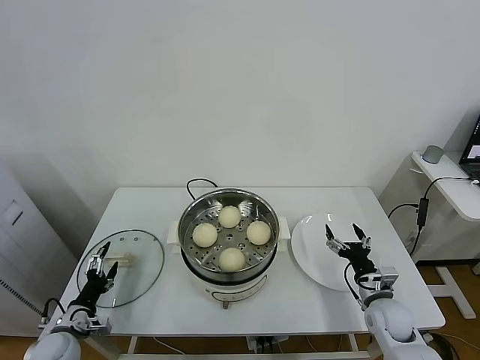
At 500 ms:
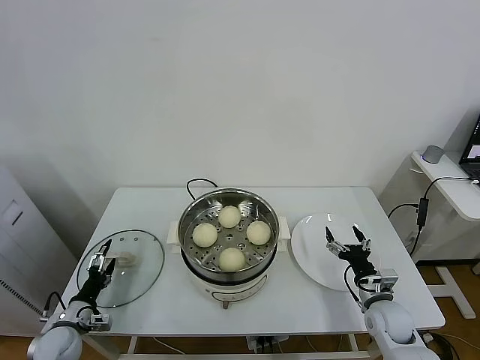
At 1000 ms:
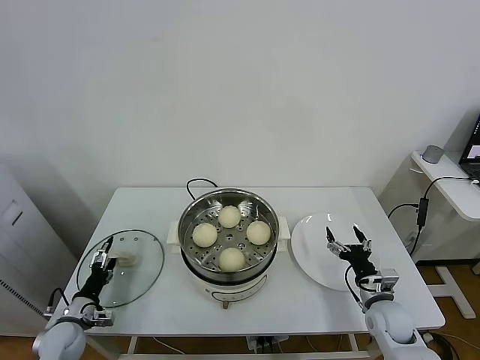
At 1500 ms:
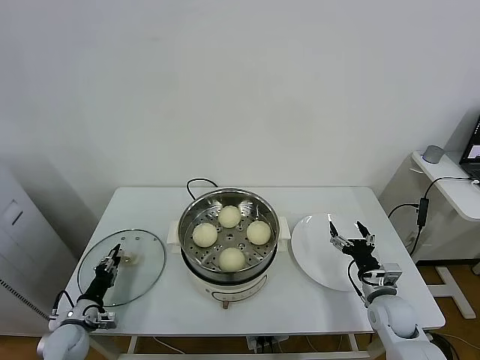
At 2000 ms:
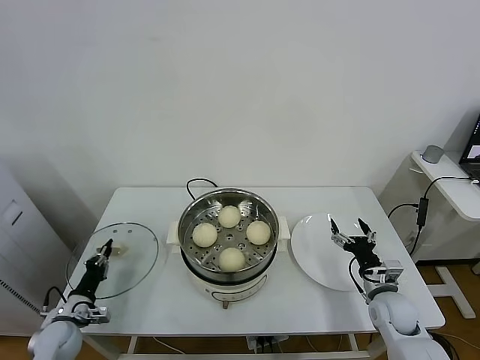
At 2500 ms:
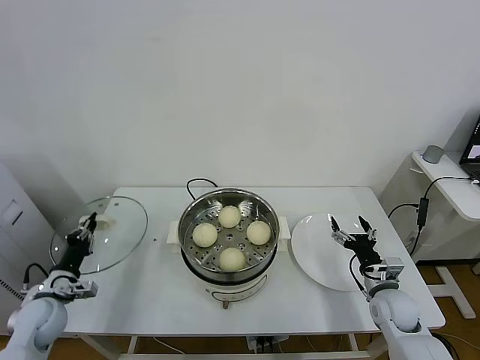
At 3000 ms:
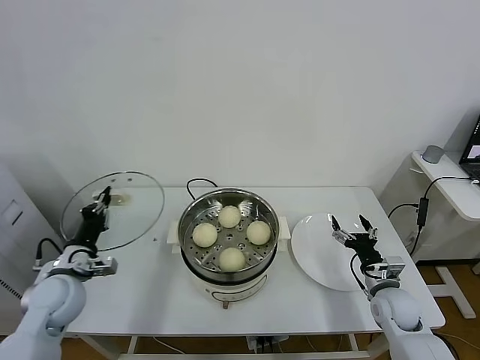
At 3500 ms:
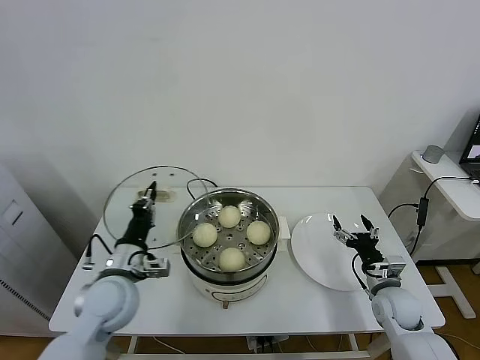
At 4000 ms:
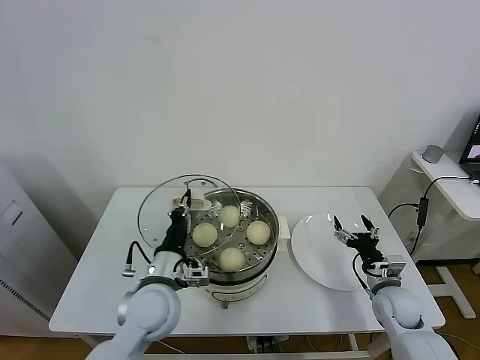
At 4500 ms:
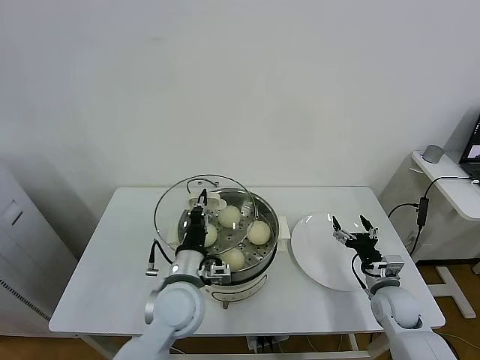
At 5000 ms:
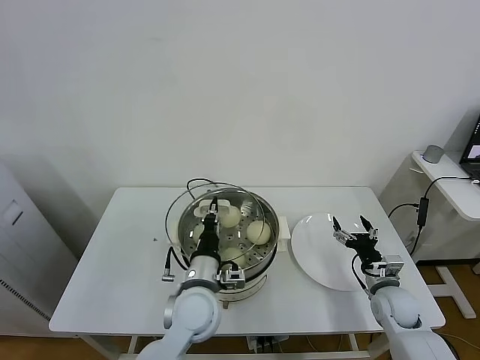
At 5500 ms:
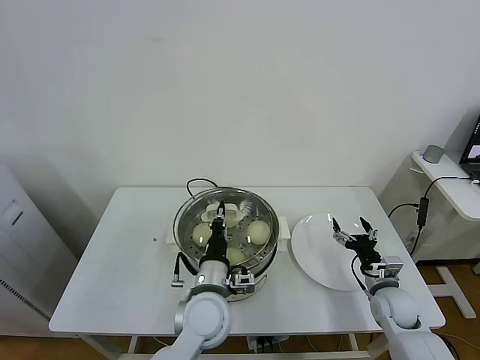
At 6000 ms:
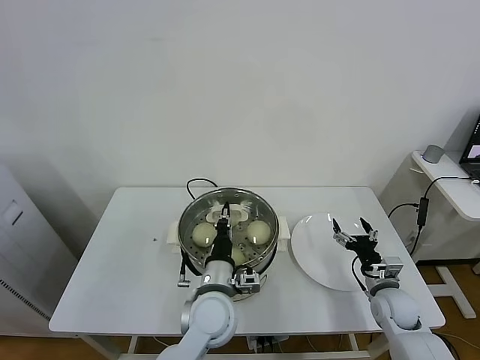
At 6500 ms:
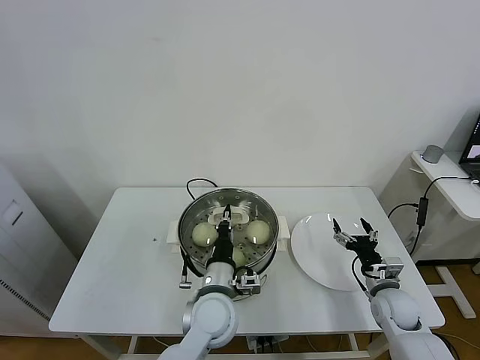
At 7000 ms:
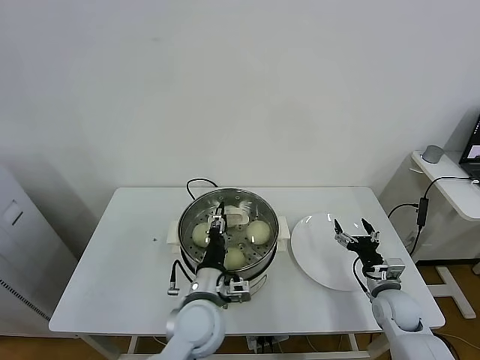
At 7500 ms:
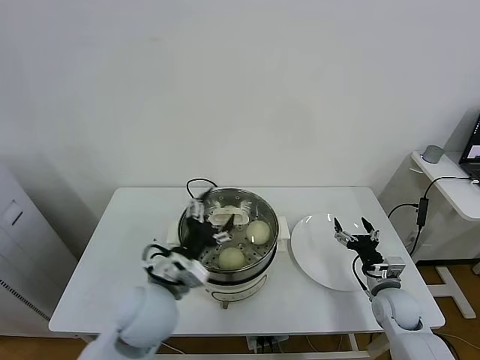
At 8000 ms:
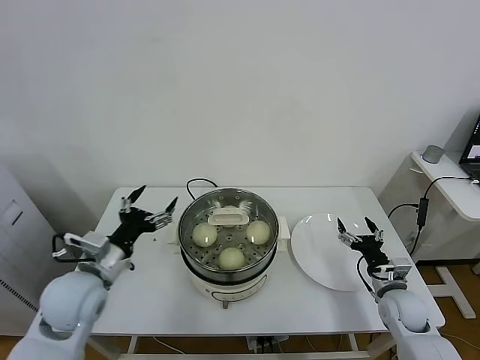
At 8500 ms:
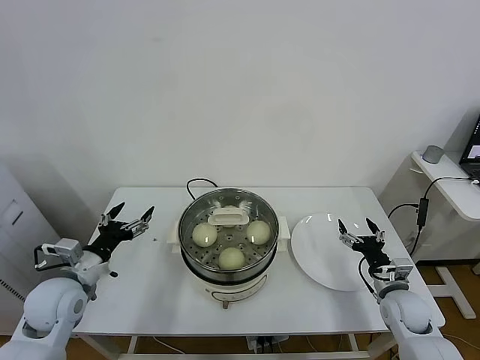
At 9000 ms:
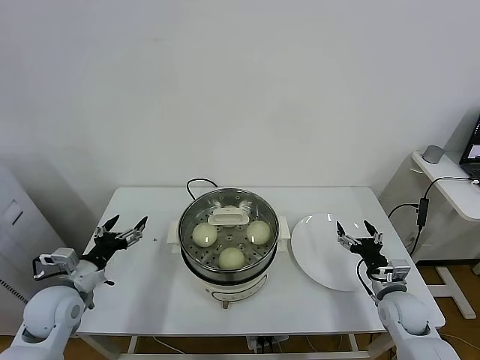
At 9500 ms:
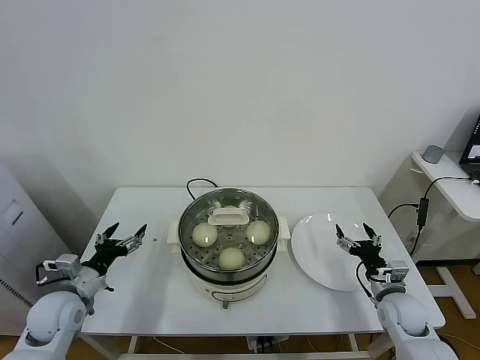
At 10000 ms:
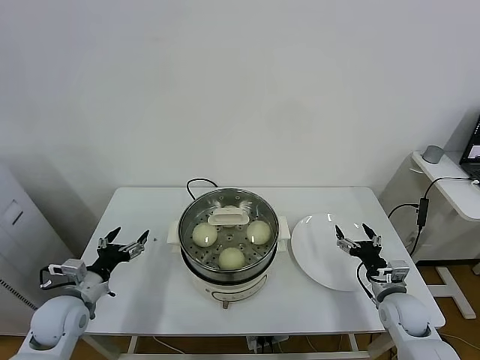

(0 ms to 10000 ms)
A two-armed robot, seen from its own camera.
Task of the whole recording: take steamed baozi put them in steamer.
Step, 2000 ms - 7000 ms: Place the pot lid on the steamer with left gripper.
0 ms - 2000 ms: The left gripper closes up.
2000 ms - 4000 ms: The left gripper heads to the right and upward, covering some 30 cm.
4000 ms - 6000 ms: The left gripper moves to the right, some 10 cm.
6000 ms - 8000 ms: The left gripper goes approximately 20 cm to the left, and opens.
8000 ms - 10000 ms: The left gripper heads downward and to the left, covering some 15 cm.

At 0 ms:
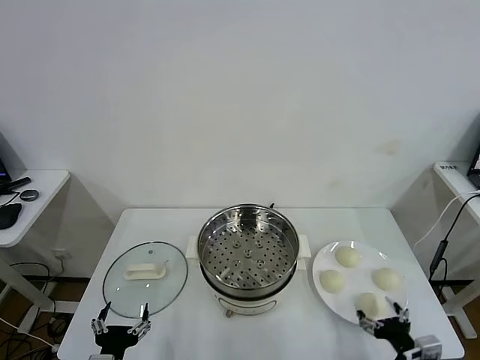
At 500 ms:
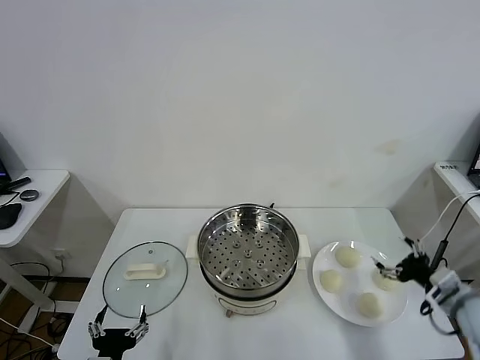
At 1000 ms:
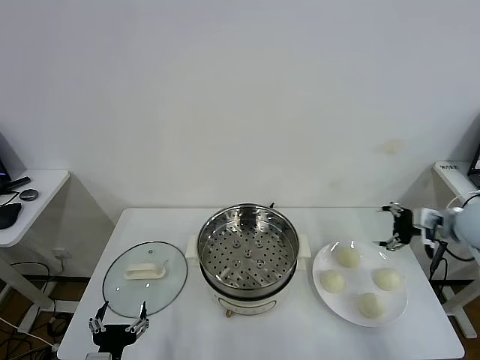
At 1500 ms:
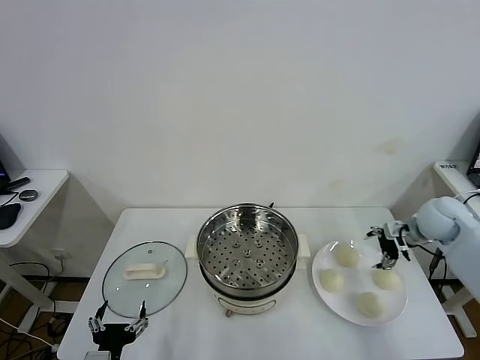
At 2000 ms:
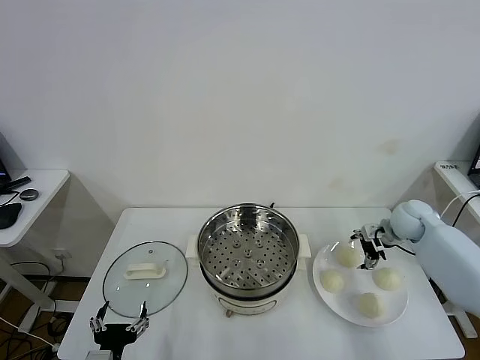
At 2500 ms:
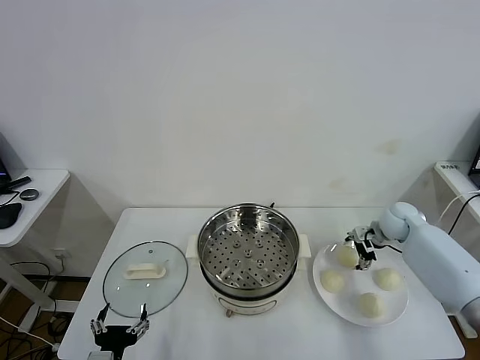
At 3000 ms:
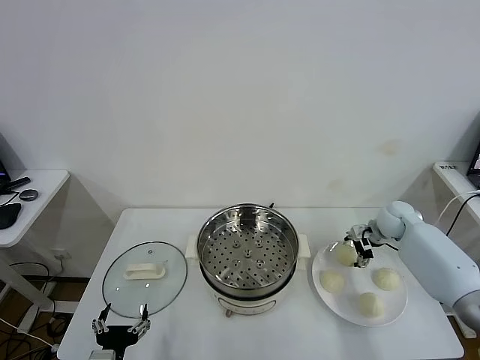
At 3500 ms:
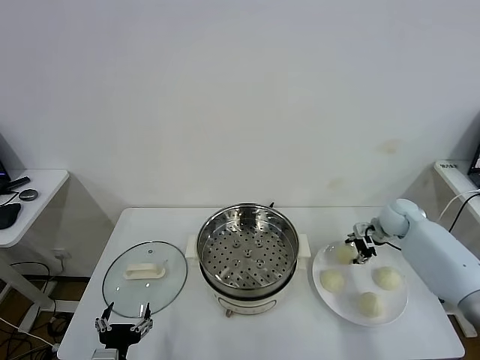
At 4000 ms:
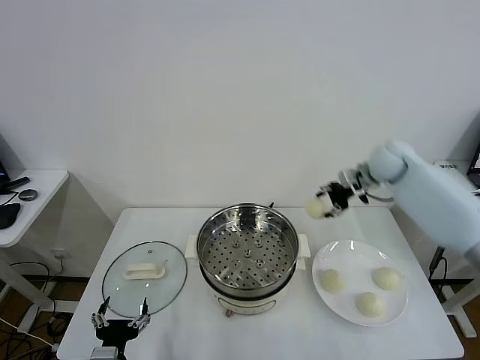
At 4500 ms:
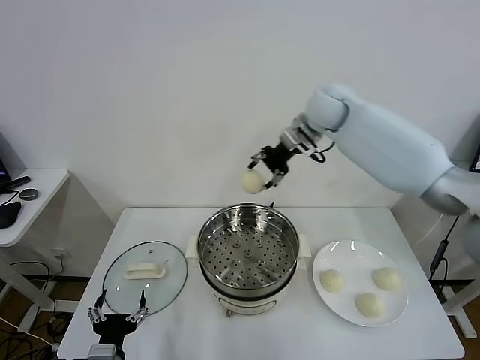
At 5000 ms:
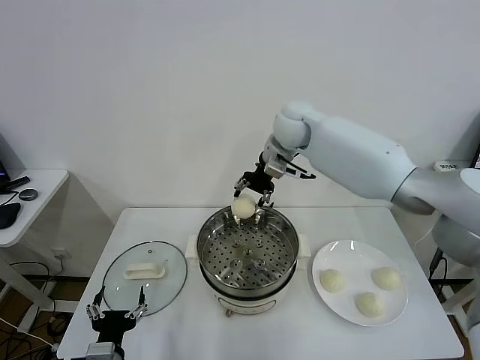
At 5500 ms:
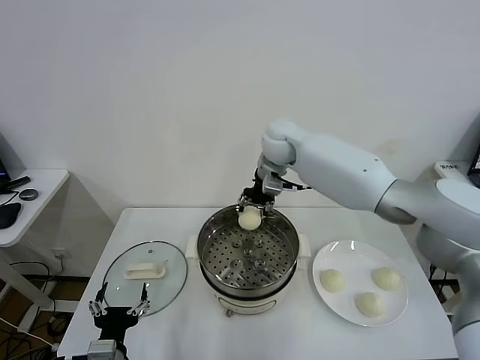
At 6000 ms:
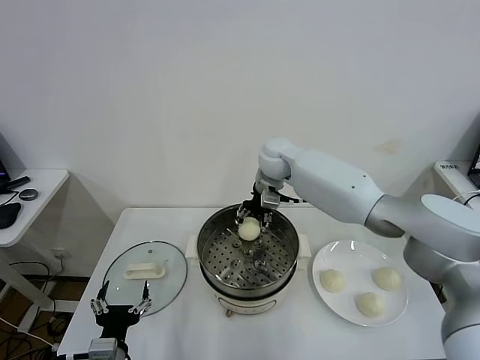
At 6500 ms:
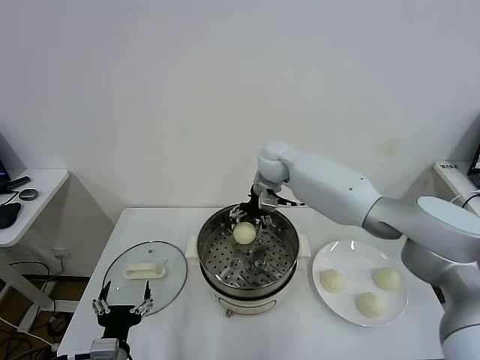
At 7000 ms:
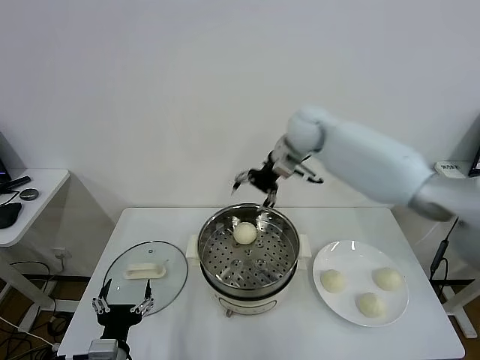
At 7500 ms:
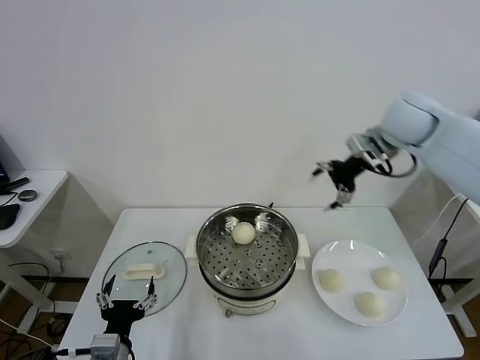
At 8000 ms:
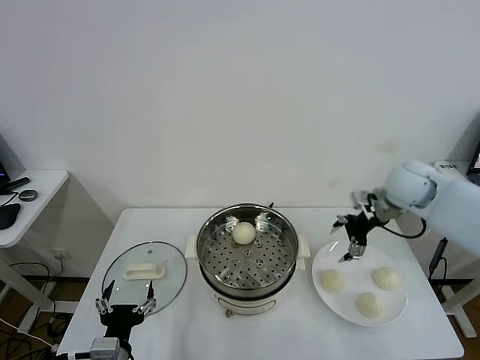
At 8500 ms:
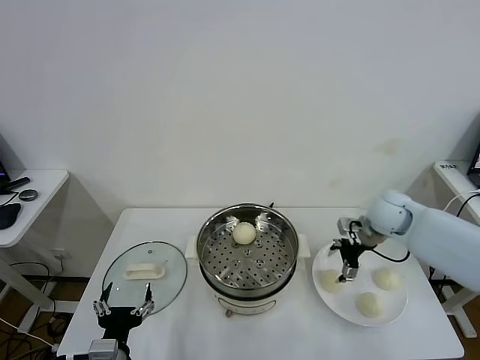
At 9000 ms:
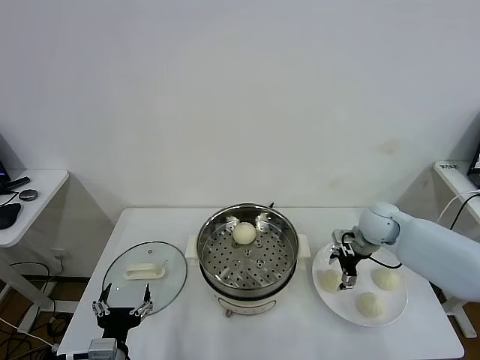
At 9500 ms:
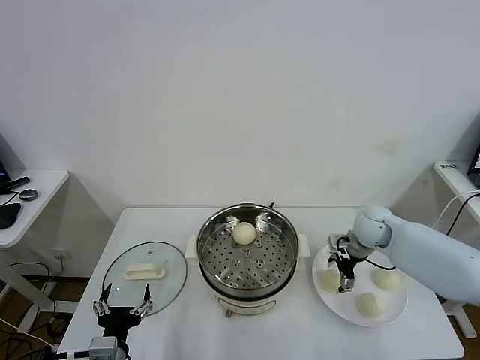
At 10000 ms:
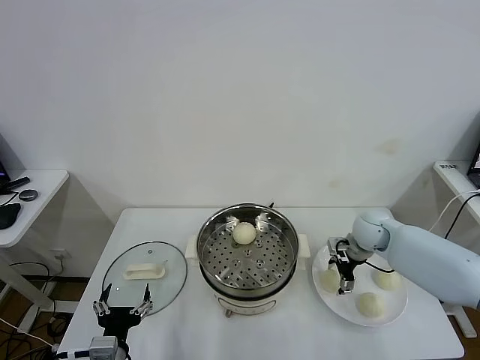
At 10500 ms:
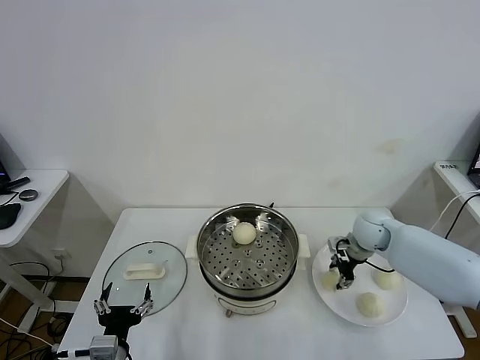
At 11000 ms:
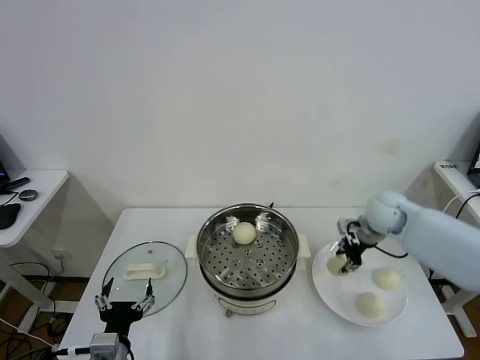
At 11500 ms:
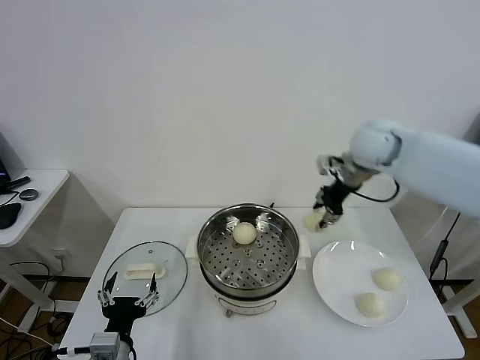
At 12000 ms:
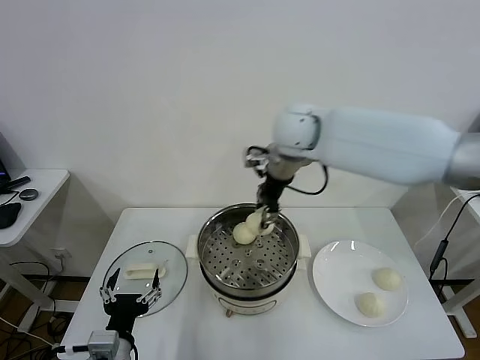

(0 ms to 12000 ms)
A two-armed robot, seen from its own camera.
Task of the whole recording: take steamed baozi put them in steamer.
Step, 0 ms - 3000 ms: Grasp the baozi in the plate with right gripper.
Step, 3500 ms - 6500 ms: Place the baozi on the steamer with right gripper.
Step, 7000 ms - 10000 ms: Grasp the baozi in the plate with right gripper.
2000 ms - 4000 ms: The right gripper goes about 20 cm upward, to the left and forward, and closes up.
4000 ms - 6000 ms: The right gripper shifts about 25 cm to the left.
6000 ms - 8000 ms: The right gripper goes some 25 cm to the right, and opens up.
8000 ms - 10000 ms: The right gripper shifts roughly 15 cm downward.
10000 ms - 12000 ms: The right gripper travels upward and to the left by roughly 35 cm, and closes up.

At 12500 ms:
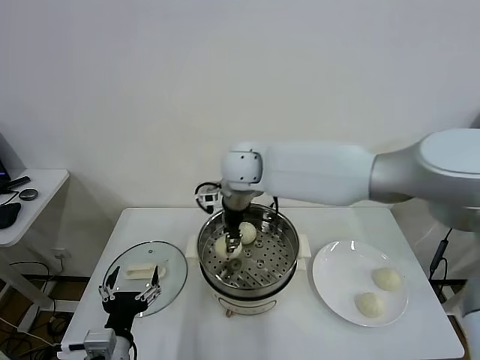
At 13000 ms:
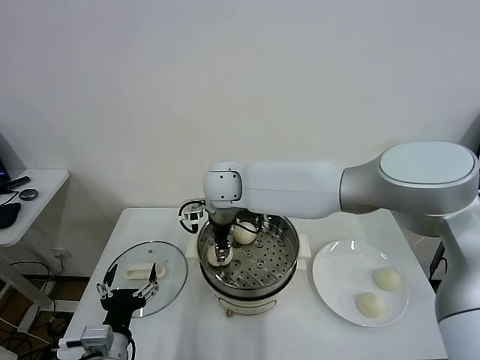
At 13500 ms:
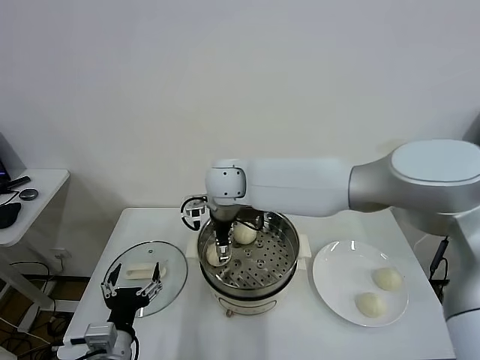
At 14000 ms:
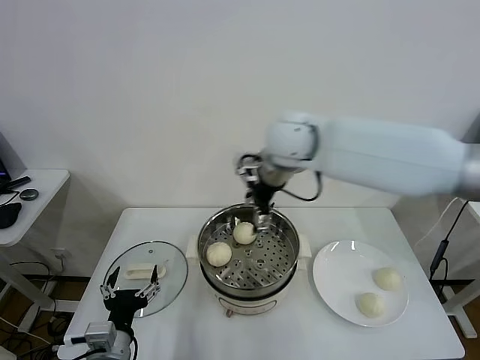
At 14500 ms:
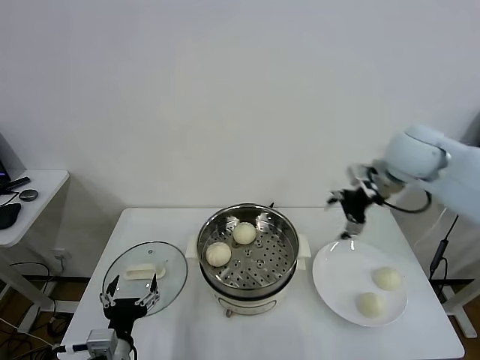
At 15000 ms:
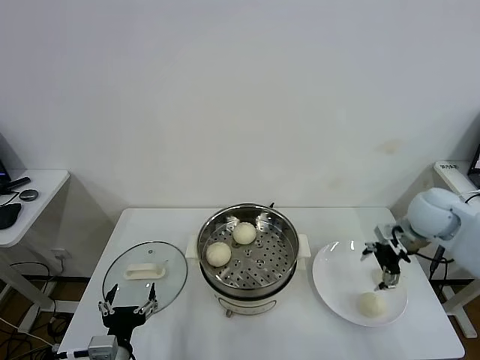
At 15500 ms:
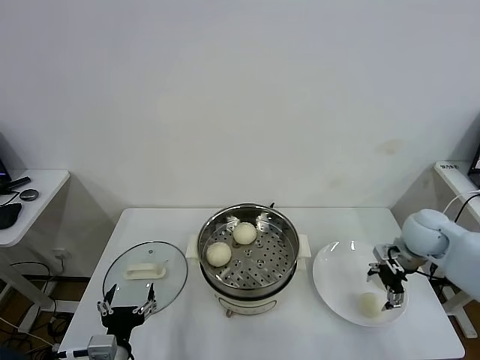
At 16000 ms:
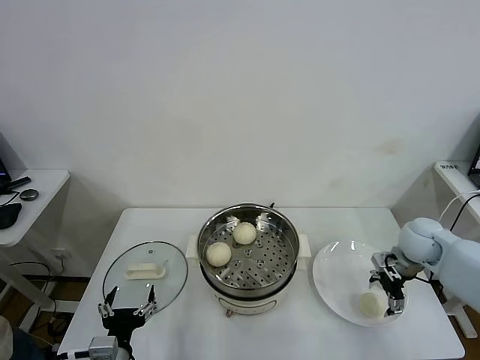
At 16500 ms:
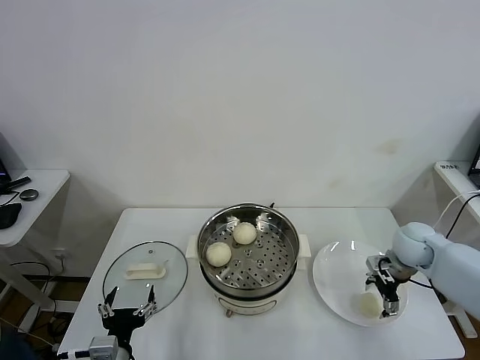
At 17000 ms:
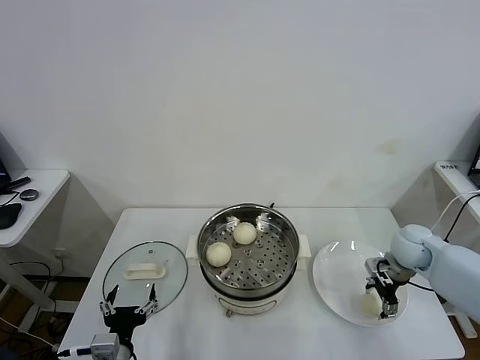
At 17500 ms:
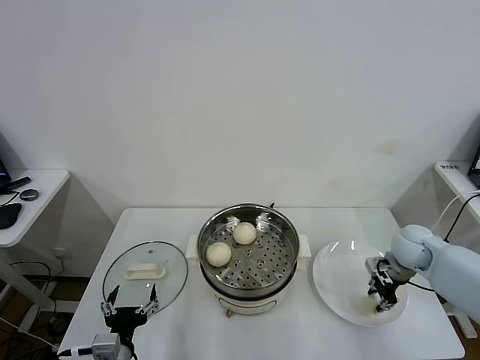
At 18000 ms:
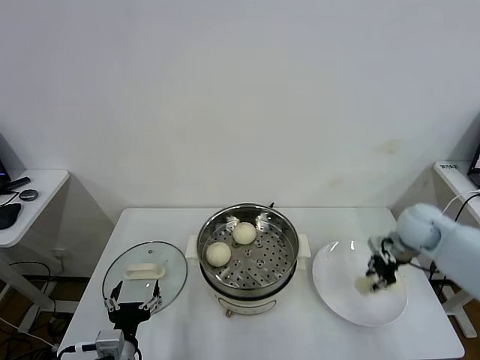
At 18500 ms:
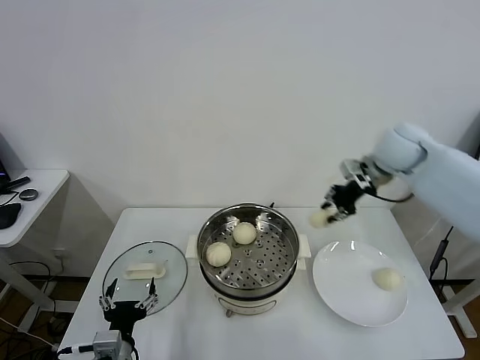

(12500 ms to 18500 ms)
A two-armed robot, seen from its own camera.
Task of the whole recording: take steamed baozi put them in steamer.
Step, 14000 ms - 17000 ms: Grasp the baozi in the plate with right gripper.
12500 ms - 14500 ms: The right gripper shifts some 30 cm to the right, and opens its fingers.
14500 ms - 16500 ms: The right gripper heads downward, covering approximately 25 cm.
16500 ms - 18500 ms: The right gripper heads upward, forward and to the left, covering roughly 25 cm, and closes.
